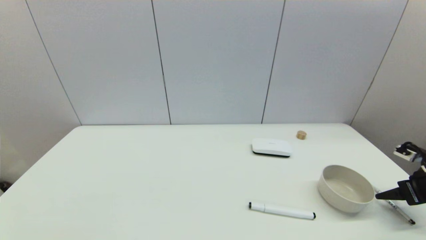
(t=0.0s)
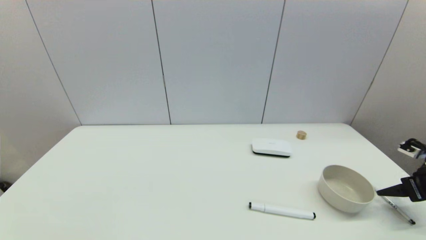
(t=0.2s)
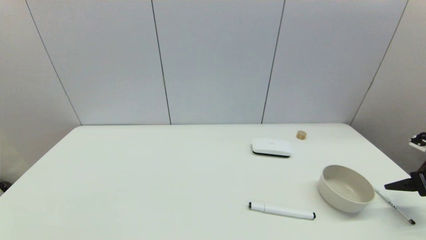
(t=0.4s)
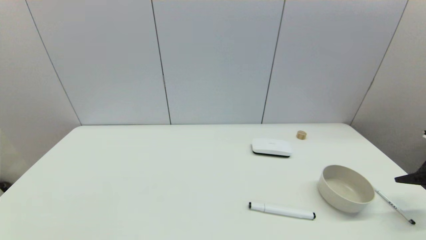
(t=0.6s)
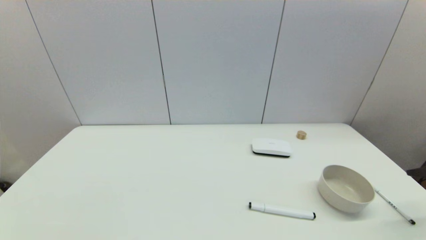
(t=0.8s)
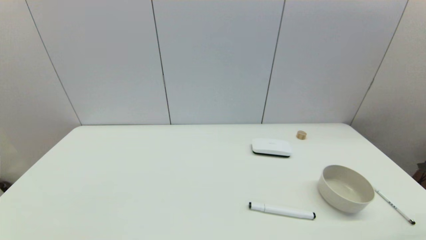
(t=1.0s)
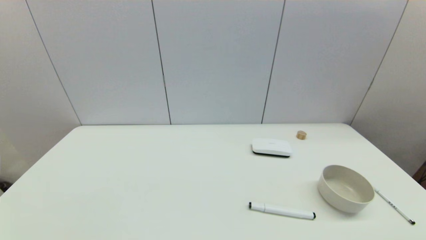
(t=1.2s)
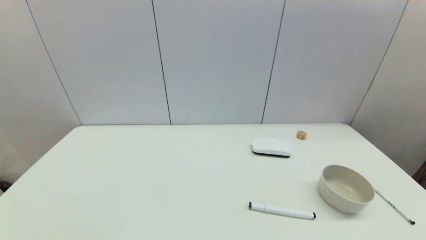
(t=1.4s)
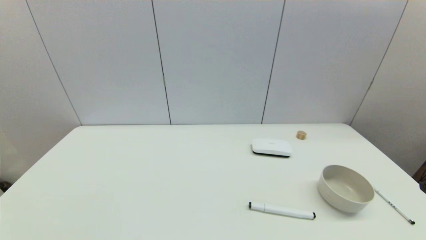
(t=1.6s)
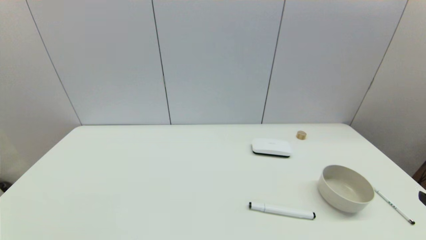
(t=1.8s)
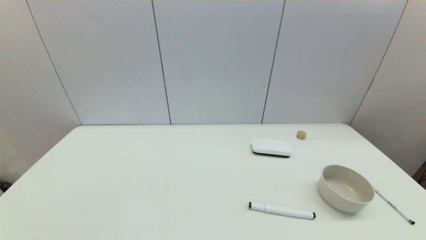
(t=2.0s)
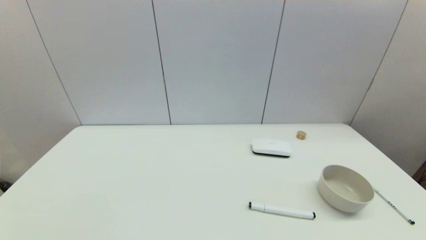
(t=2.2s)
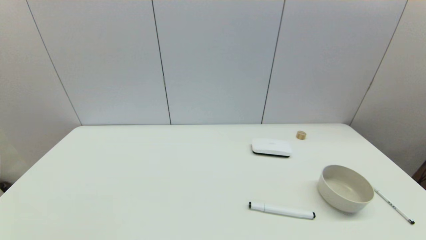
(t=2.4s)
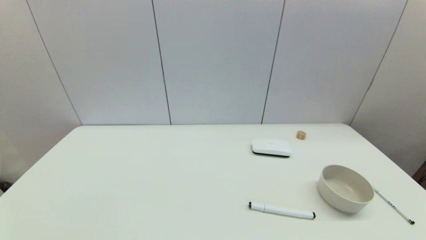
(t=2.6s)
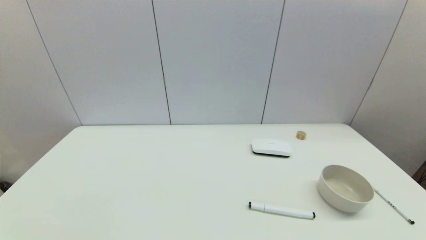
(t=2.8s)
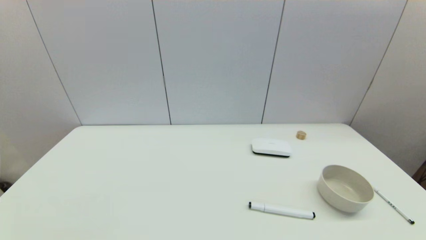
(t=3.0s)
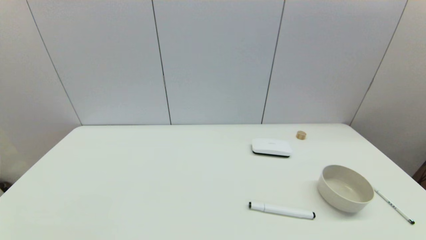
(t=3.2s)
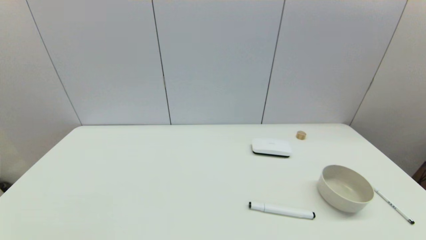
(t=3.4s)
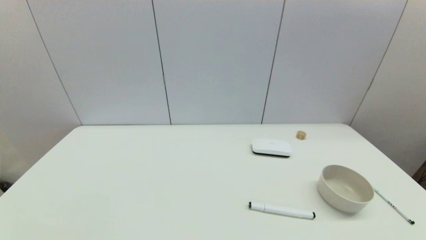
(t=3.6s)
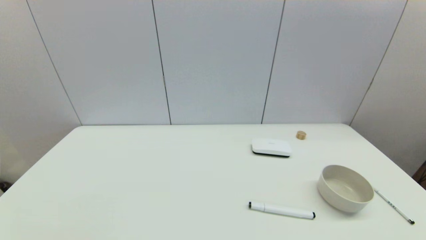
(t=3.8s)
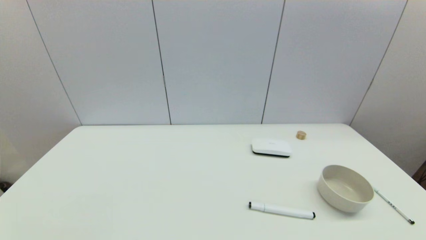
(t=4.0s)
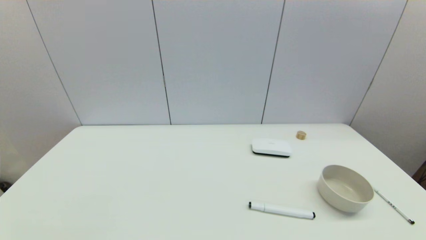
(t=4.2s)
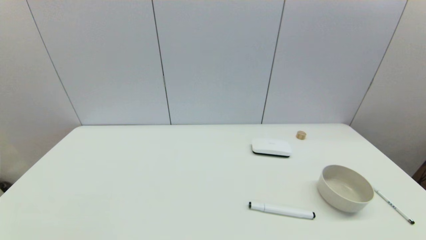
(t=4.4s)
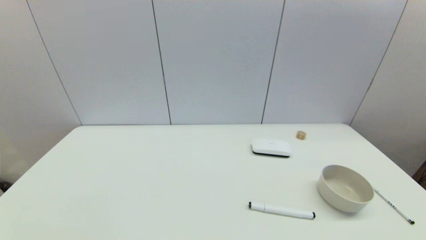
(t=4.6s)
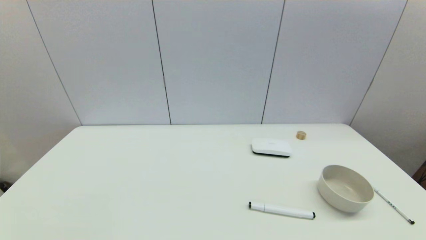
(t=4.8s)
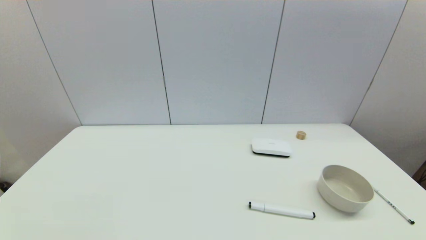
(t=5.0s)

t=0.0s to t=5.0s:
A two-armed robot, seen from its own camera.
Task of the whole recording: put the pen in the designated position.
t=0.0s to t=1.6s: The right gripper goes approximately 20 cm backward, to the left and upward, and opens.

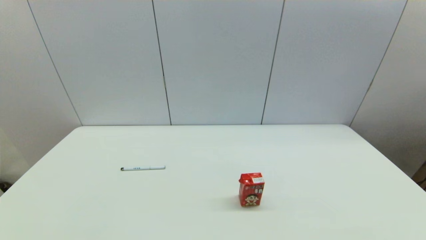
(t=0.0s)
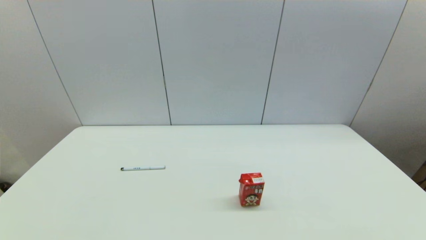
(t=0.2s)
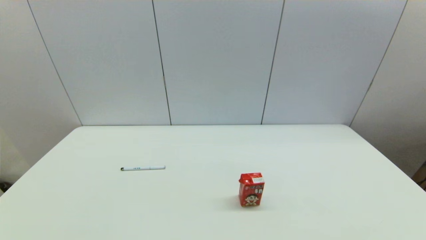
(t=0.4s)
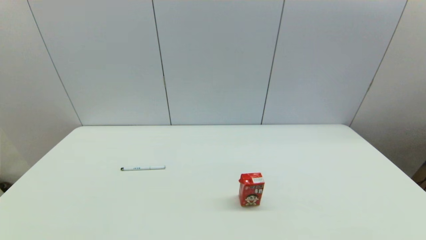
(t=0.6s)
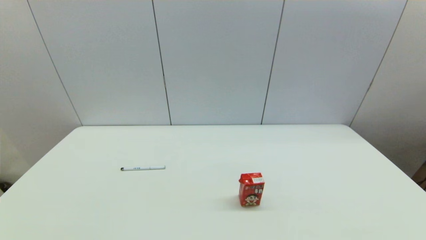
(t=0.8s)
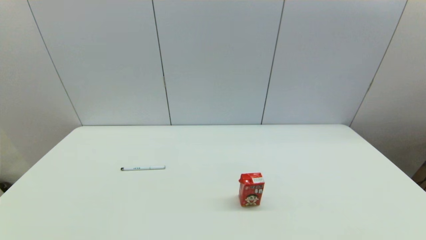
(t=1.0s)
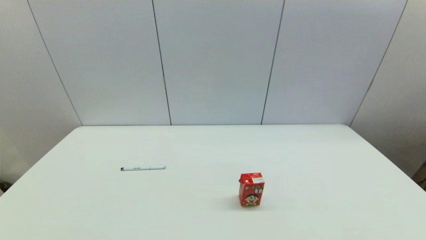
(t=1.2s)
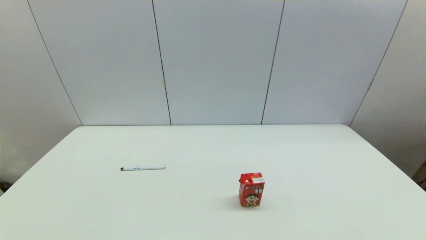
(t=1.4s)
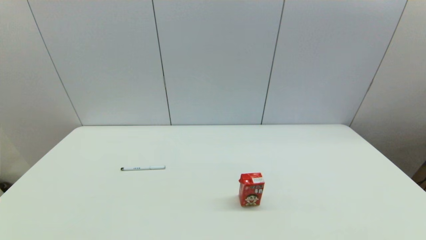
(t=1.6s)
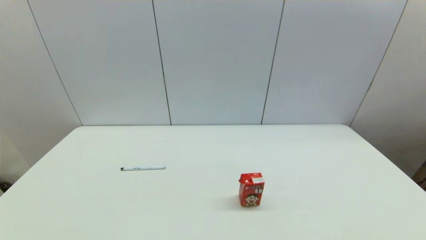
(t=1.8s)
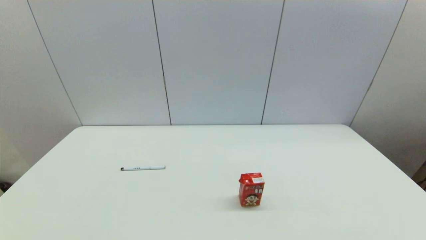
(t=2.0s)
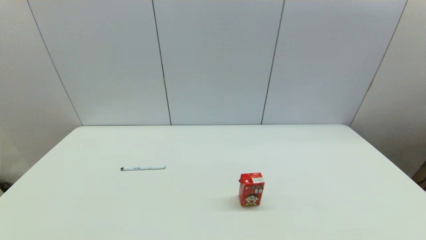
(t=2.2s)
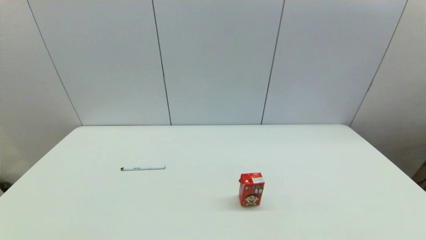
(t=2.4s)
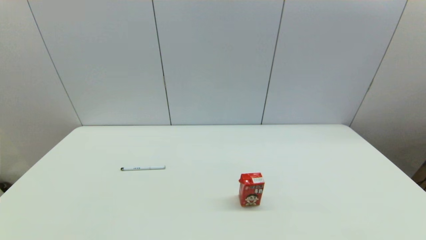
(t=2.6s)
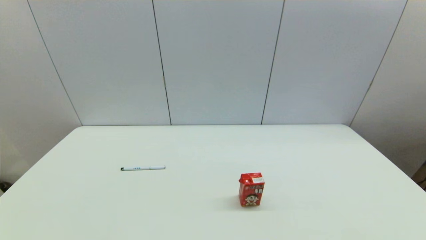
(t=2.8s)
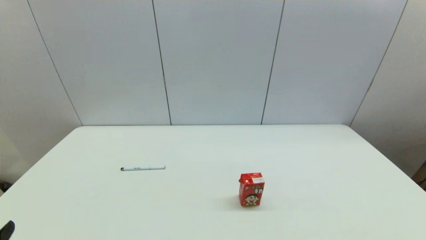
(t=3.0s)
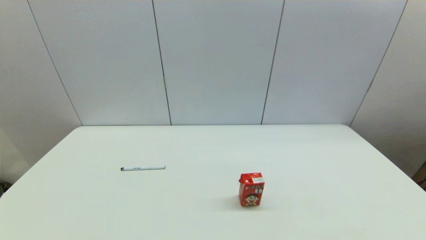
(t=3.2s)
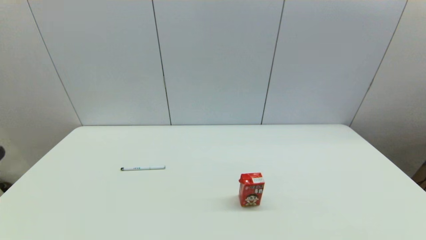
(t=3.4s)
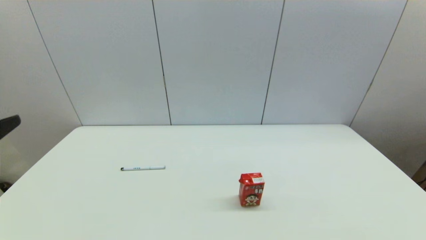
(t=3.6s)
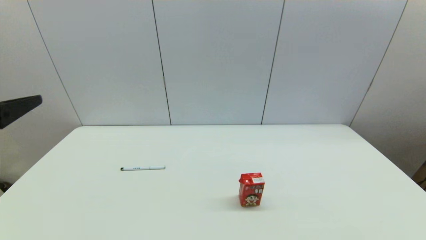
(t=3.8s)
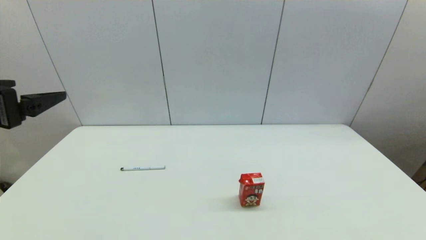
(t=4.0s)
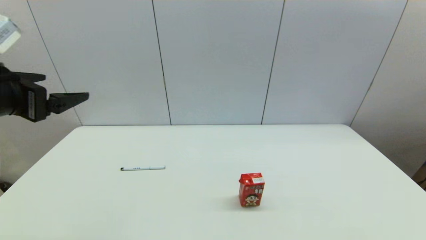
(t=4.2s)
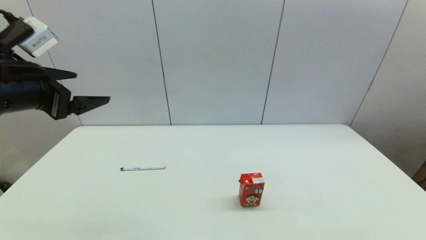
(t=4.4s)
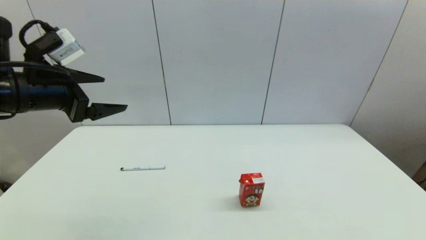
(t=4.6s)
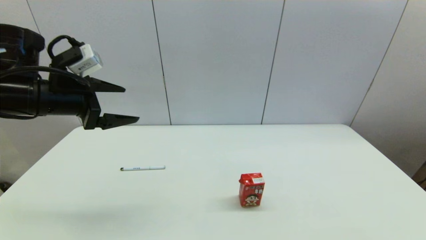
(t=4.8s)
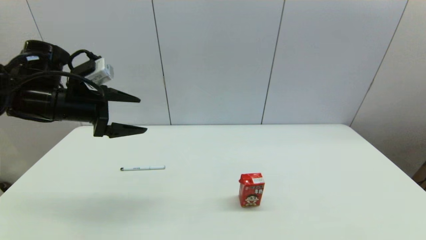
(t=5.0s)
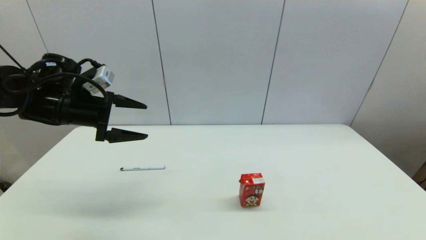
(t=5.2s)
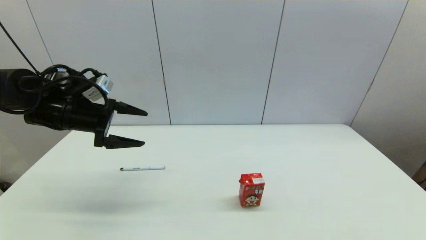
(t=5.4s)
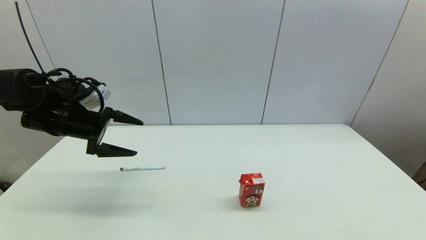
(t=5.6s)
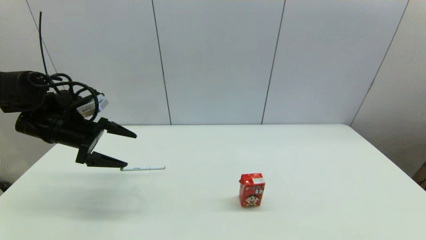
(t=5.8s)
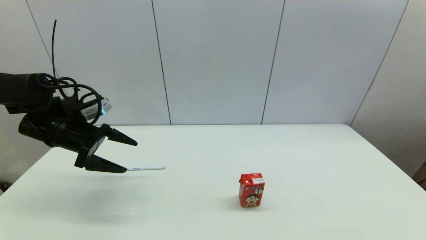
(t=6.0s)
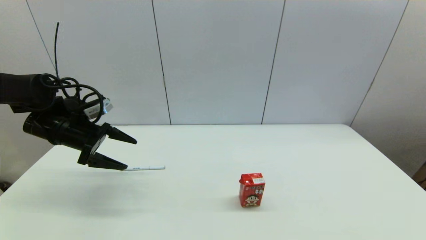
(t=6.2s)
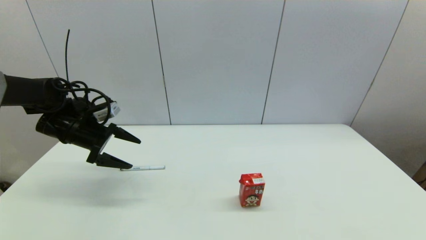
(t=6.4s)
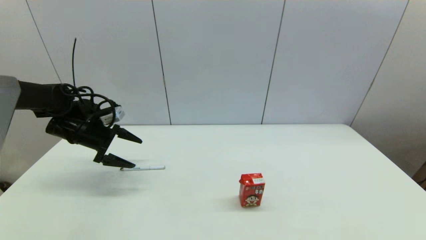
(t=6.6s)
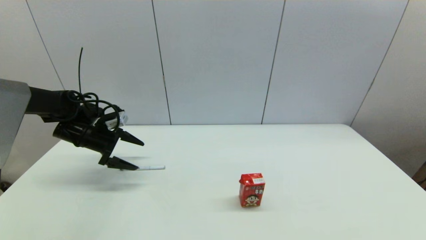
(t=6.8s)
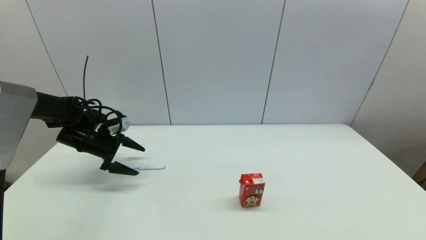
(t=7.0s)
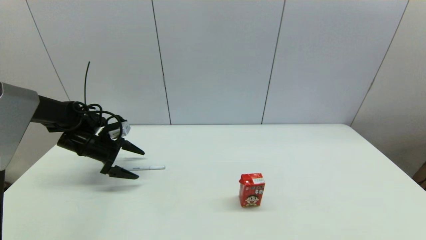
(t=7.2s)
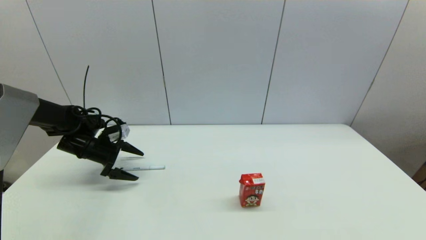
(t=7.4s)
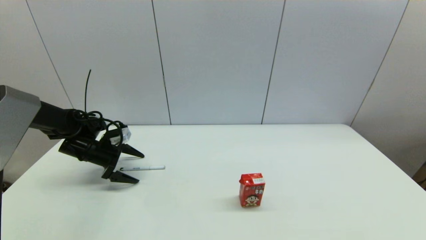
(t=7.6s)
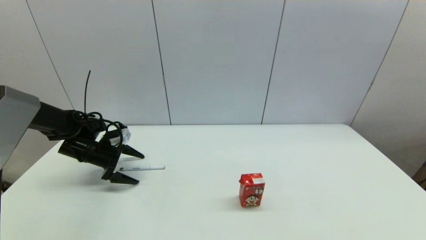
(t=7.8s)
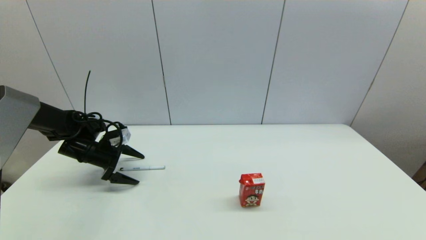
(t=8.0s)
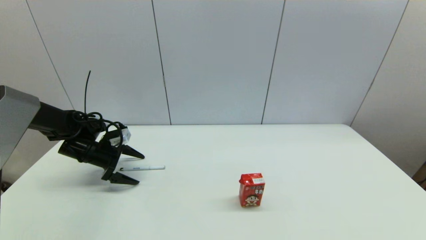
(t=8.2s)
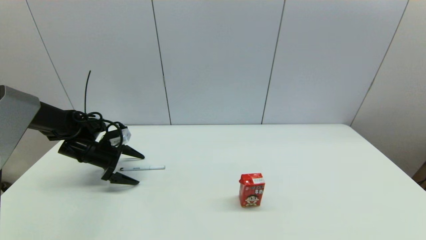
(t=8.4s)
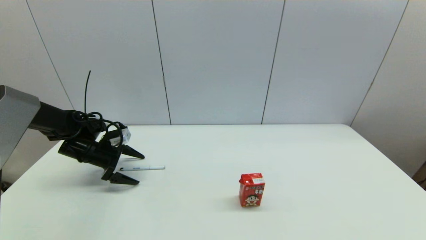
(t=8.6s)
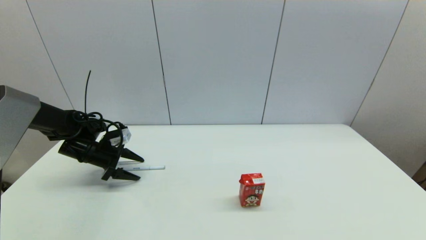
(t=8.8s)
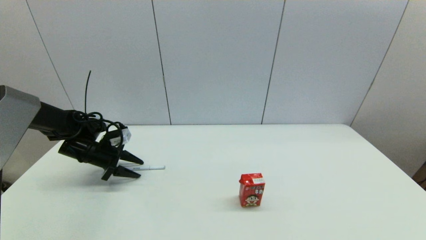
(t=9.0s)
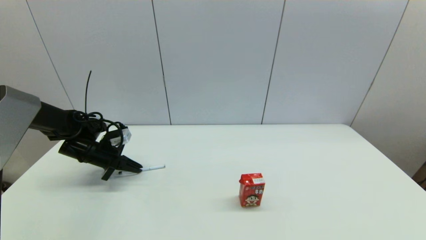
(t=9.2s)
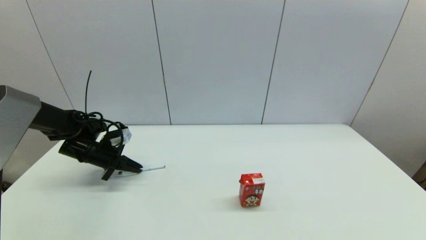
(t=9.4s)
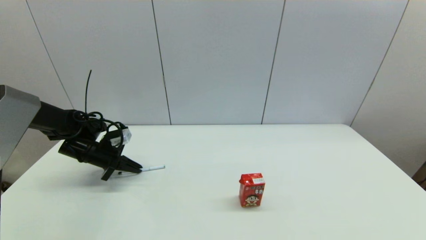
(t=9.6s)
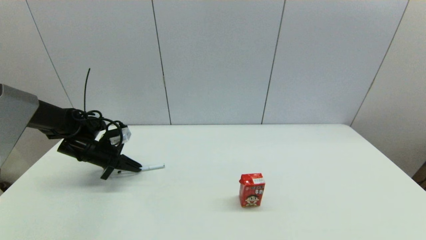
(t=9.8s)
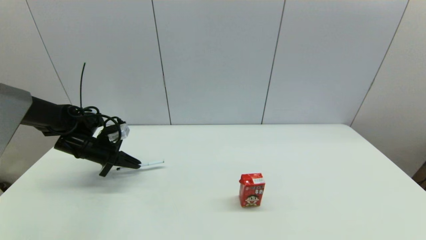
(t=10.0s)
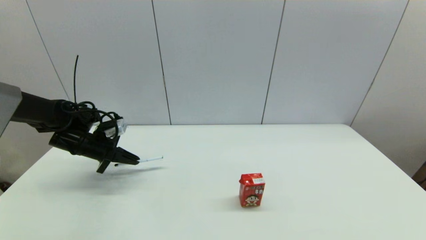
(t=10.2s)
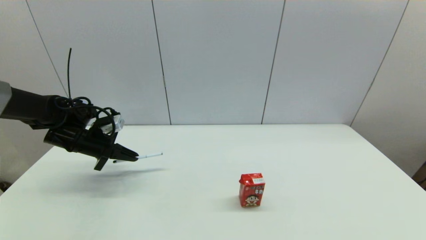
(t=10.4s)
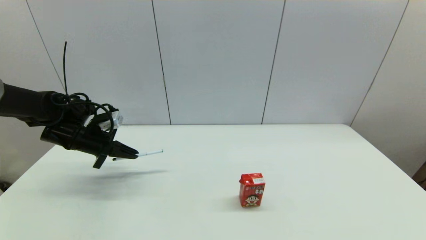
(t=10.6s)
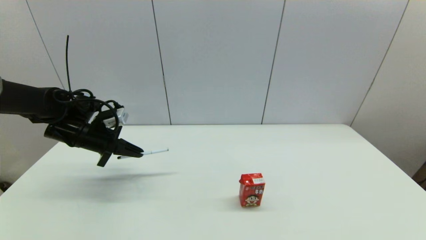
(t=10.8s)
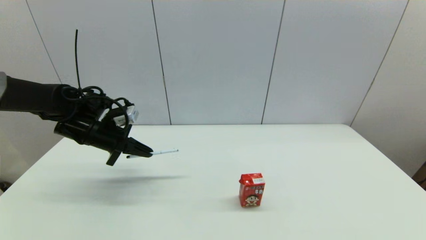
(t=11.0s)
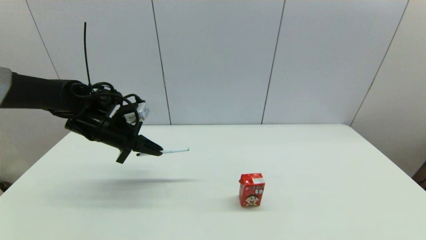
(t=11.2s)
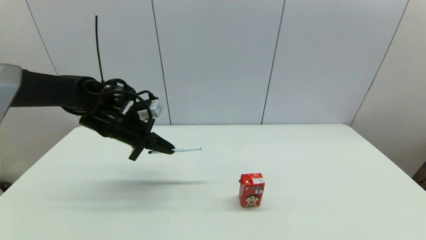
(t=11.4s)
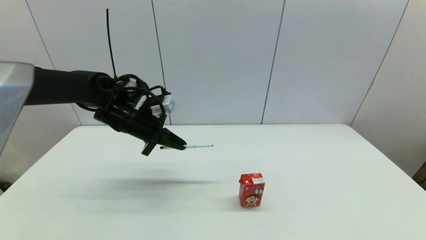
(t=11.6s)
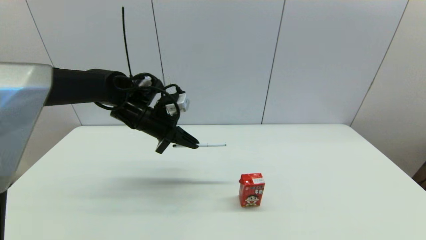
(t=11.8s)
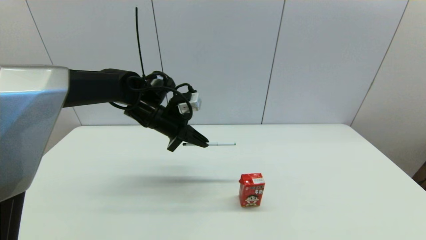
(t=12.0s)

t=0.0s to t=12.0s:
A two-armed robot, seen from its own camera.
Task of the whole recording: put the pen in the designated position.
Step, t=3.0s to t=9.2s: Grasp the sign pen with left gripper.
t=0.0s to t=1.6s: Both grippers stay about where they are.
t=3.0s to t=4.4s: The left gripper is displaced forward and upward by some 25 cm.
t=4.4s to t=6.0s: The left gripper moves downward and forward, approximately 15 cm.
t=6.0s to t=7.6s: The left gripper moves downward and forward, about 10 cm.
t=7.6s to t=9.0s: The left gripper closes up.
t=9.0s to t=10.4s: The left gripper is displaced upward by about 5 cm, and closes its fingers.
t=10.4s to t=12.0s: The left gripper shifts roughly 20 cm to the right.
